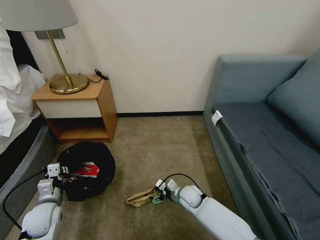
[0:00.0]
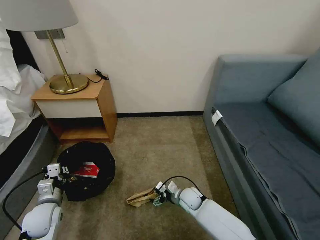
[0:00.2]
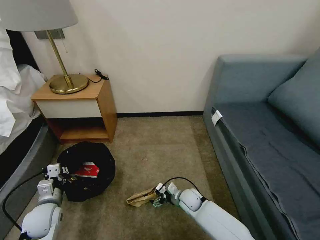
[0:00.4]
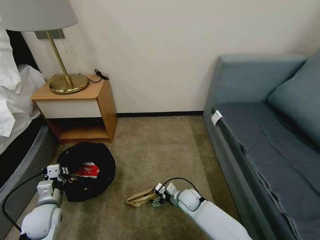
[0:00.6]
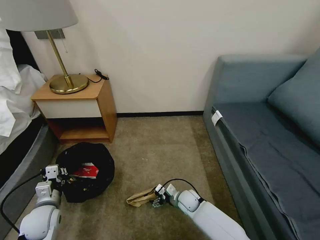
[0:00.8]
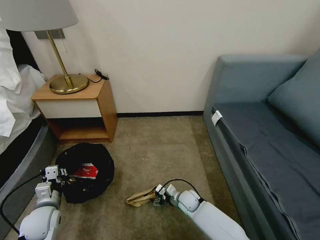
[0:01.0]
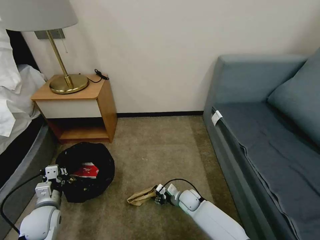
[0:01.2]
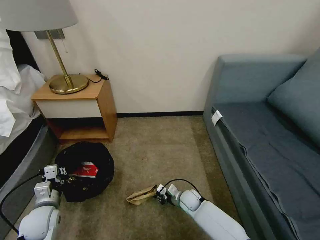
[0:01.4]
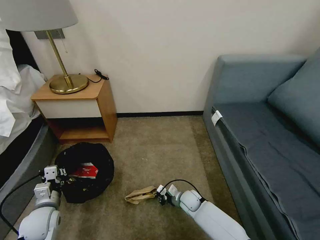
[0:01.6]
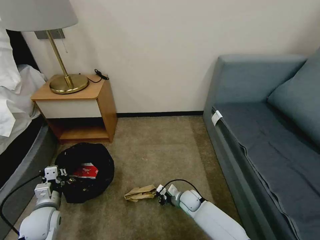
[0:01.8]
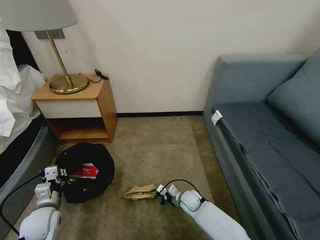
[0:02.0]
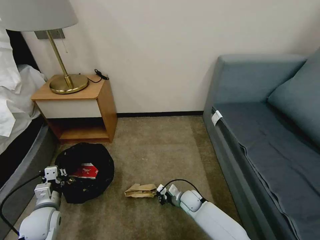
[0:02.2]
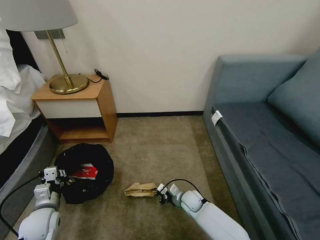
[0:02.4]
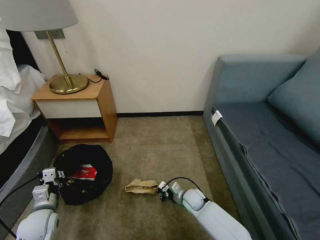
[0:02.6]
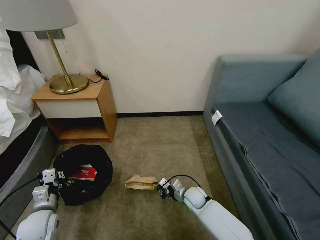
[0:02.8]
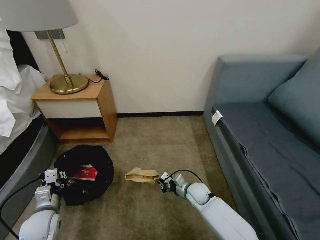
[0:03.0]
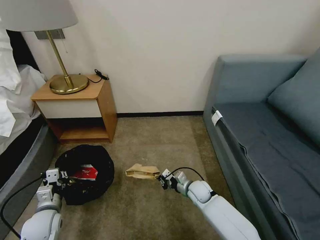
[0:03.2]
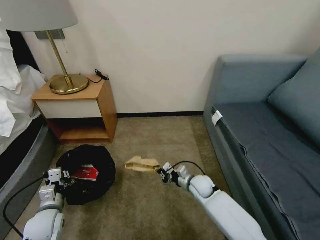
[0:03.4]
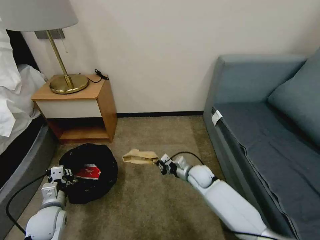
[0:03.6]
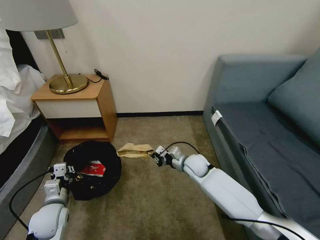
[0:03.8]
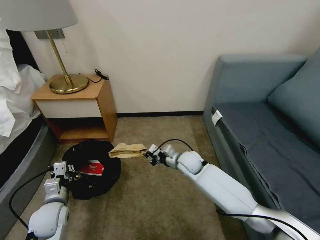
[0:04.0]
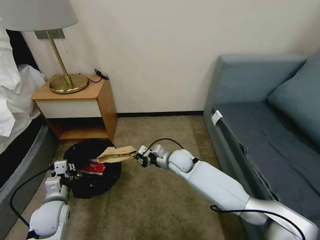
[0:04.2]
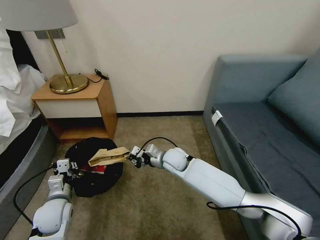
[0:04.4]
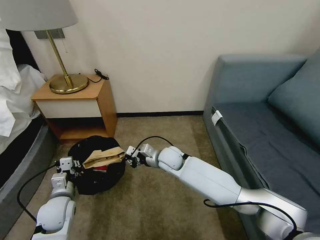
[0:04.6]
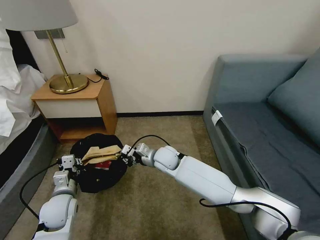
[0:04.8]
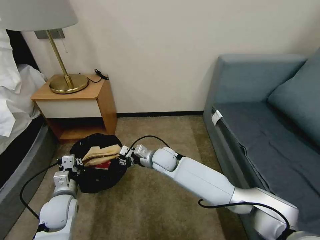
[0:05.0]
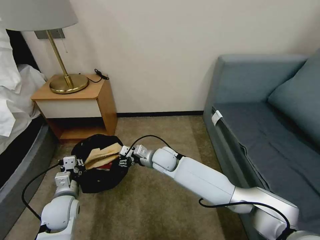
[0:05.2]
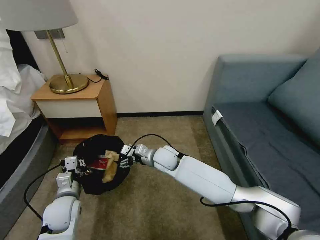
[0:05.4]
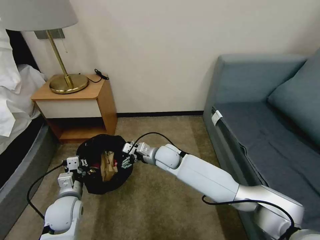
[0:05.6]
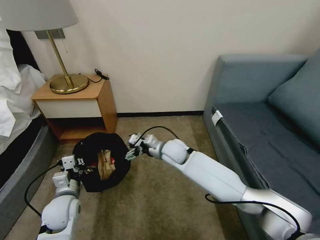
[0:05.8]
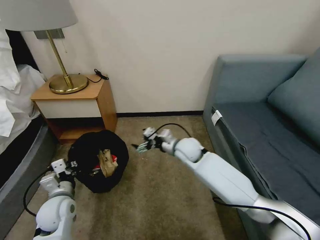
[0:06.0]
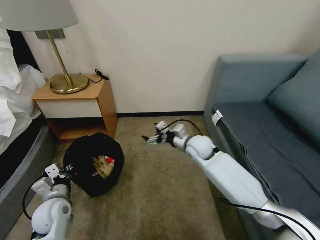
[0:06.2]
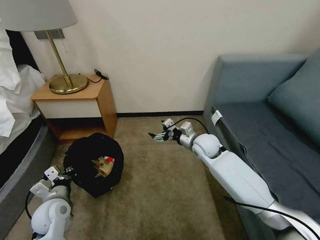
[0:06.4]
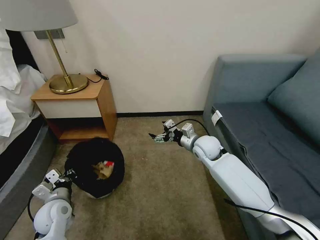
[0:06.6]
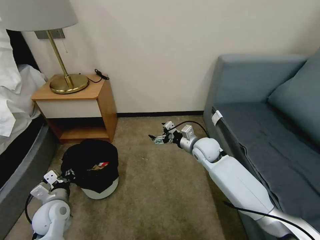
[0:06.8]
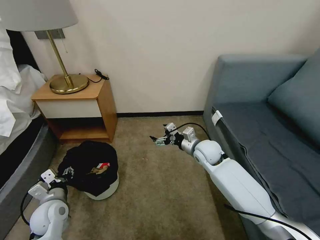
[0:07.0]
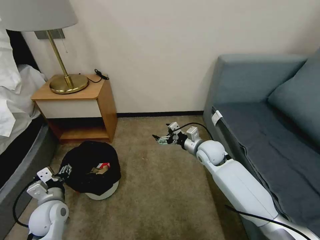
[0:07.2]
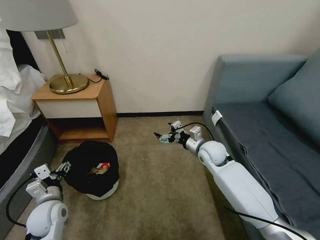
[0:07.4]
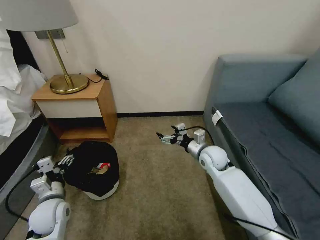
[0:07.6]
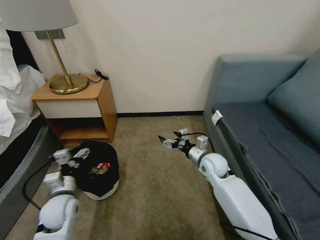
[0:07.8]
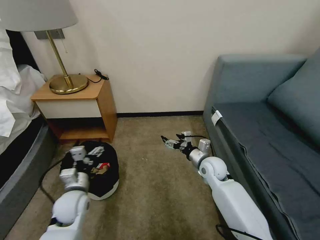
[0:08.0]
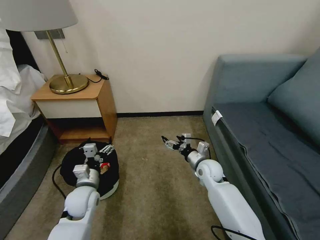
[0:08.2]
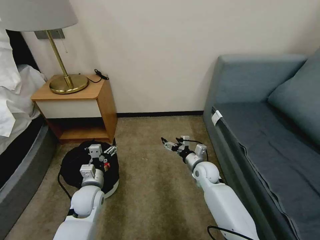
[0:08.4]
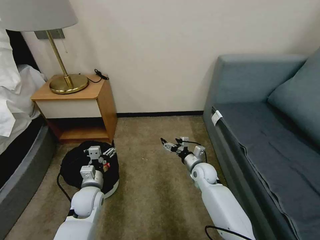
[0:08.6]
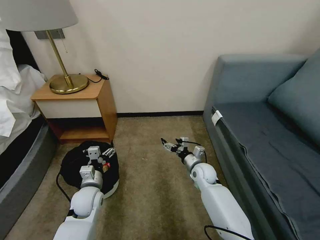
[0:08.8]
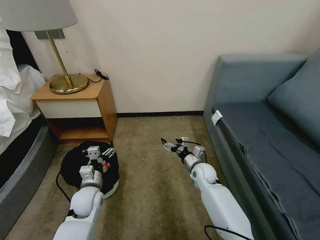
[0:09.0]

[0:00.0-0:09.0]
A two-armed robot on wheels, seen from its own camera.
Task of the whole recording: Pick up the trash bin, then pick up the garbage on the floor and place it into the trash bin.
0:00.0 to 0:01.6: The right gripper closes its fingers.
0:01.6 to 0:03.0: The right gripper moves about 5 cm.
0:03.0 to 0:04.4: The left gripper moves approximately 5 cm, while the right gripper travels upward, to the left and forward by approximately 20 cm.
0:04.4 to 0:06.0: The right gripper shifts by roughly 5 cm, and opens.
0:06.0 to 0:07.6: The left gripper opens its fingers, while the right gripper travels to the right by about 10 cm.
0:07.6 to 0:09.0: The left gripper is displaced to the right and forward by approximately 10 cm. The right gripper heads downward, covering some 10 cm.
